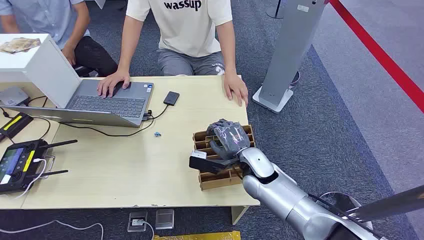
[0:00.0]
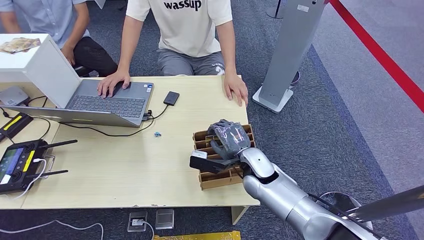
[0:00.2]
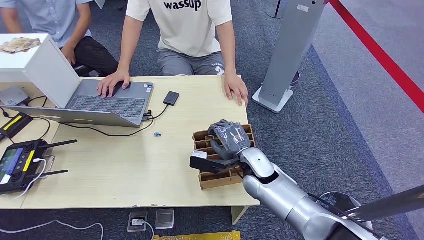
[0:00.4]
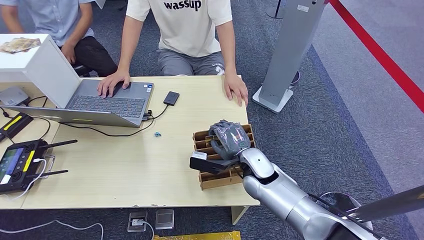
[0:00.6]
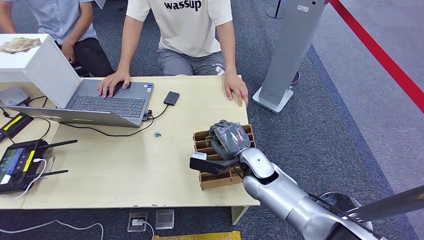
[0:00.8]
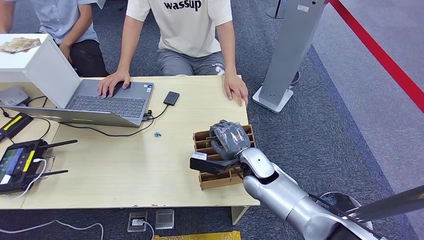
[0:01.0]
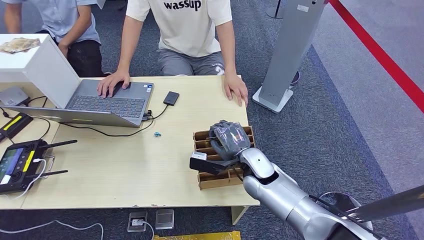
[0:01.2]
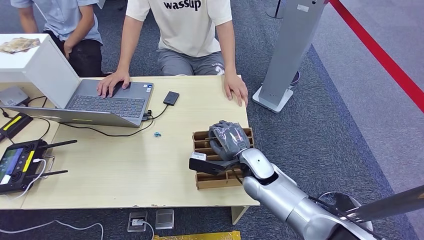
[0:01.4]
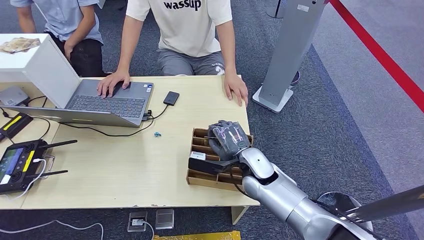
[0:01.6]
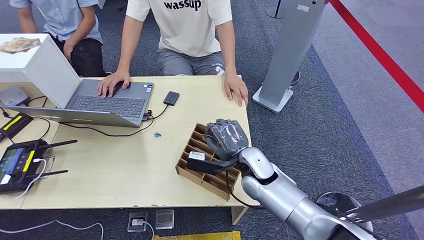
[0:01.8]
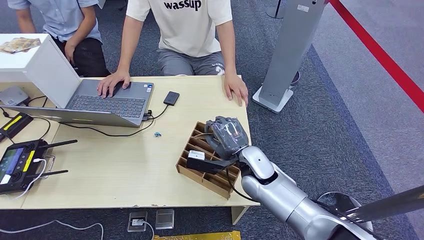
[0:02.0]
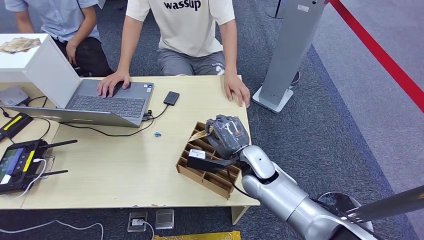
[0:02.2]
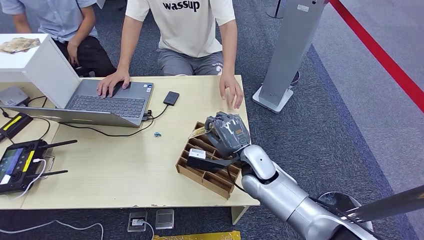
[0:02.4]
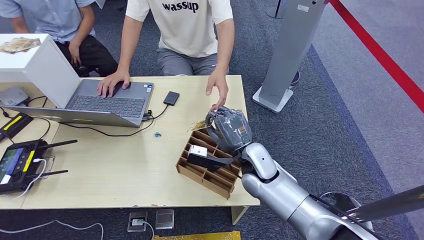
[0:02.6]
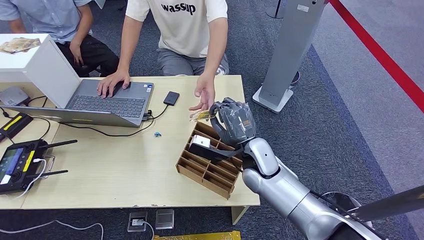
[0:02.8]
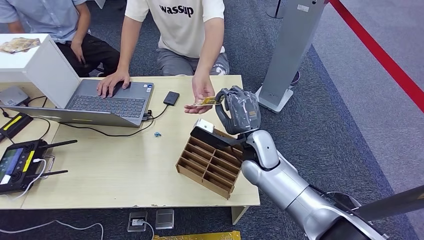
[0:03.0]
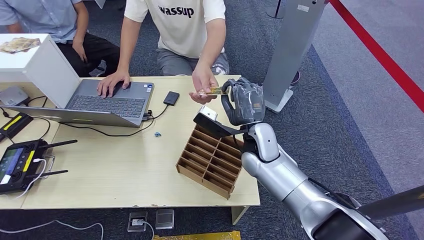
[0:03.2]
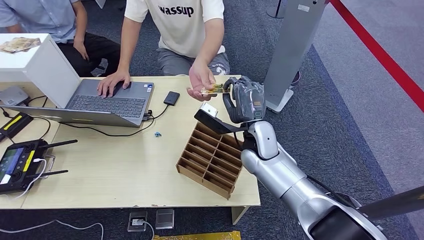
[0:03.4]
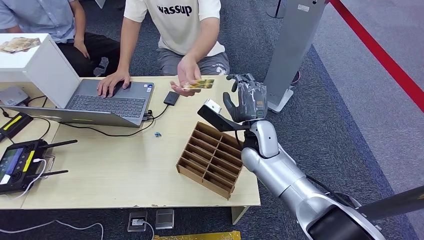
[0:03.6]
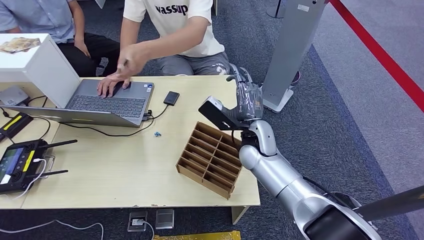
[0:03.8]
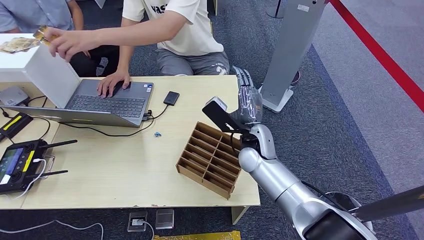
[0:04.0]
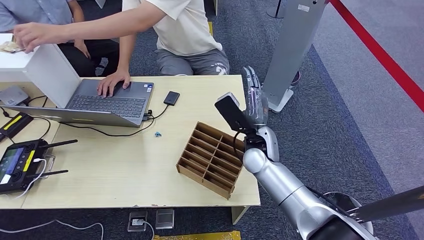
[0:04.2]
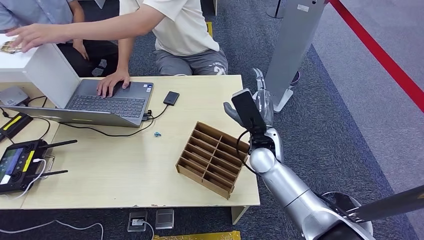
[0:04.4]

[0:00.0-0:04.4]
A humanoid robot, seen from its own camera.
Task of the whole recording: Pick up the card and hand it over to the target person.
Step, 0:00.0 to 0:02.4: Pick up the key card from the card box.
Step, 0:02.6 to 0:04.4: Hand the key card to the target.
0:01.4 to 0:03.0: The right hand travels upward by approximately 5 cm.
0:03.0 to 0:04.4: The right hand goes some 5 cm to the right.
